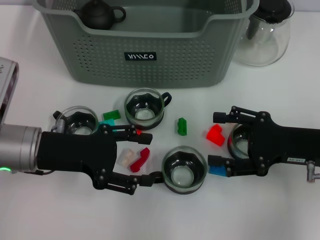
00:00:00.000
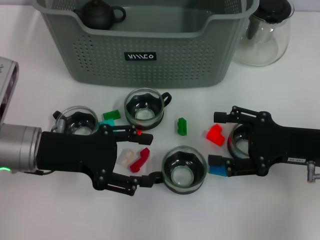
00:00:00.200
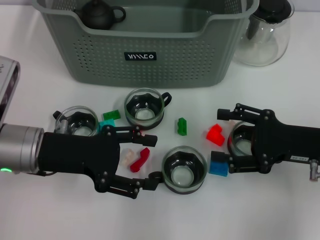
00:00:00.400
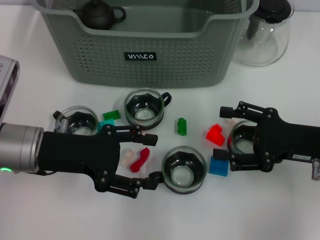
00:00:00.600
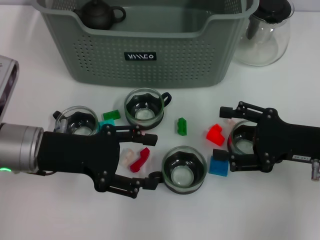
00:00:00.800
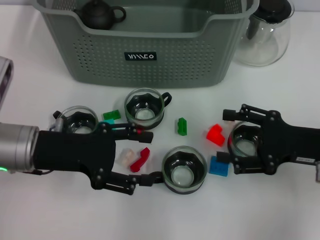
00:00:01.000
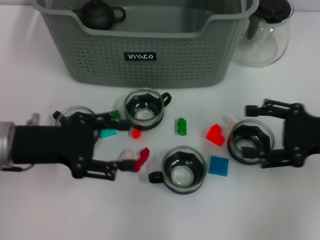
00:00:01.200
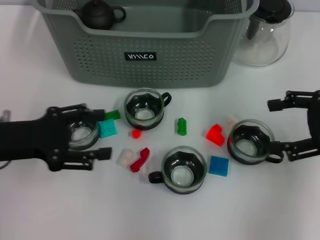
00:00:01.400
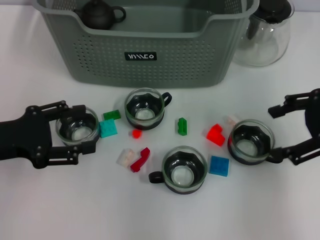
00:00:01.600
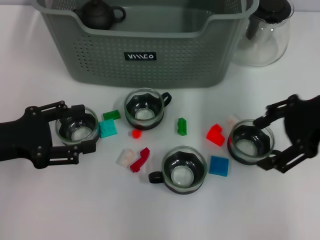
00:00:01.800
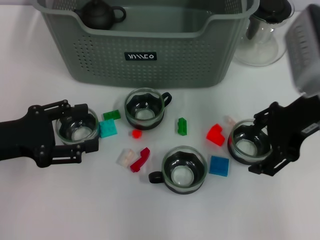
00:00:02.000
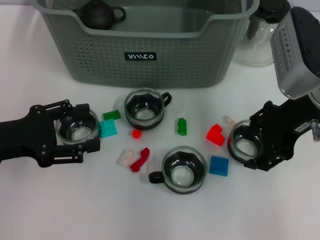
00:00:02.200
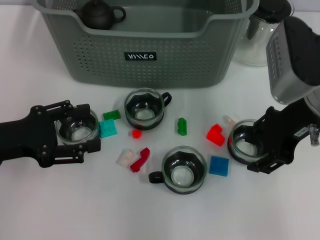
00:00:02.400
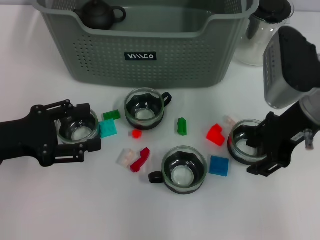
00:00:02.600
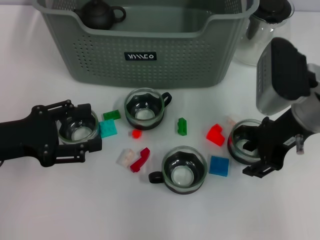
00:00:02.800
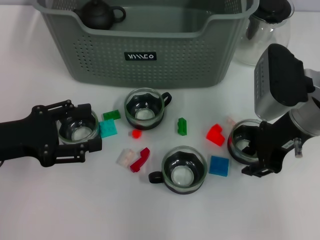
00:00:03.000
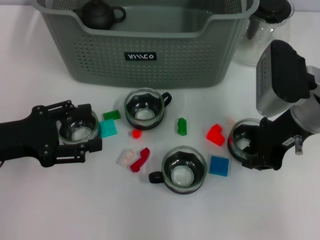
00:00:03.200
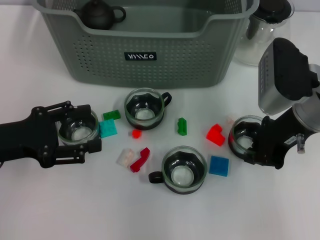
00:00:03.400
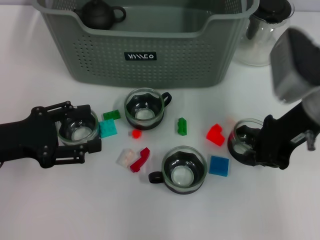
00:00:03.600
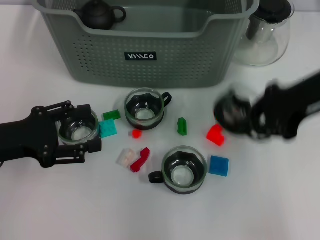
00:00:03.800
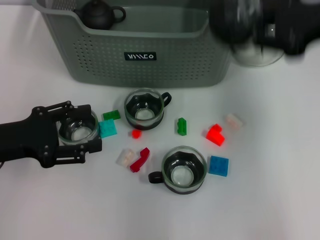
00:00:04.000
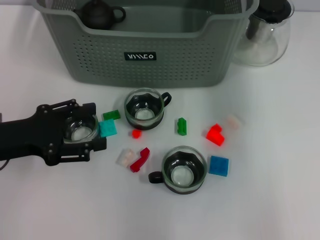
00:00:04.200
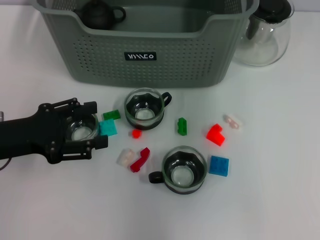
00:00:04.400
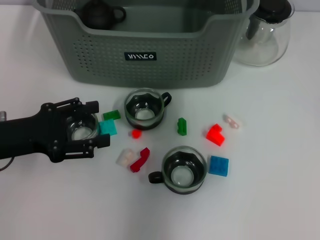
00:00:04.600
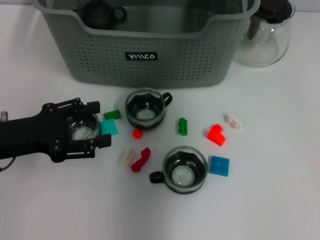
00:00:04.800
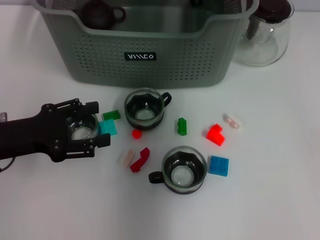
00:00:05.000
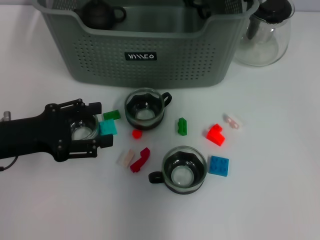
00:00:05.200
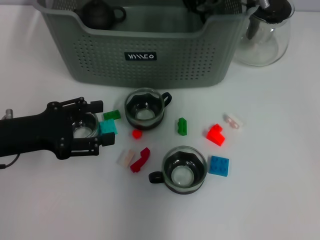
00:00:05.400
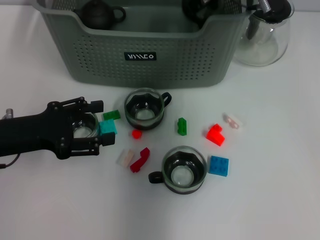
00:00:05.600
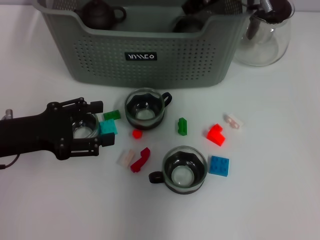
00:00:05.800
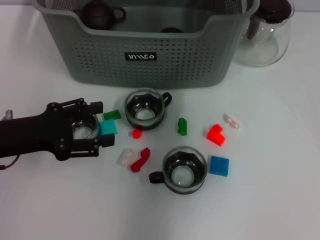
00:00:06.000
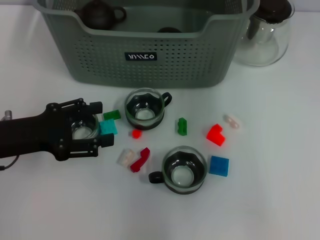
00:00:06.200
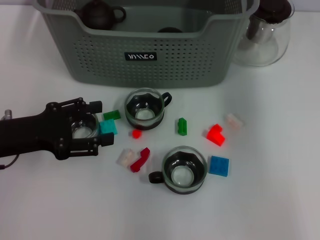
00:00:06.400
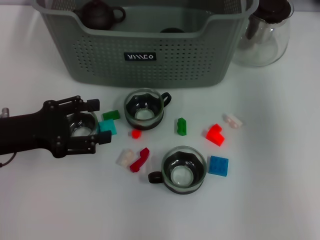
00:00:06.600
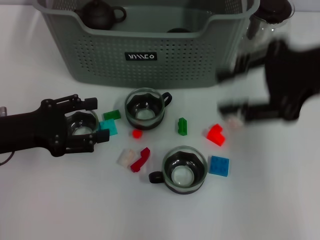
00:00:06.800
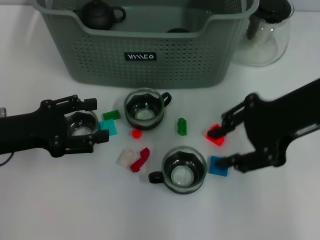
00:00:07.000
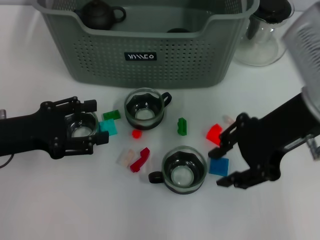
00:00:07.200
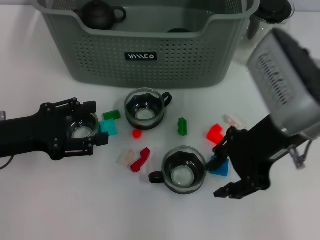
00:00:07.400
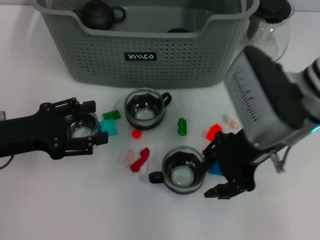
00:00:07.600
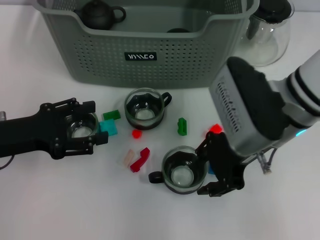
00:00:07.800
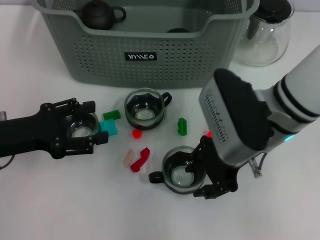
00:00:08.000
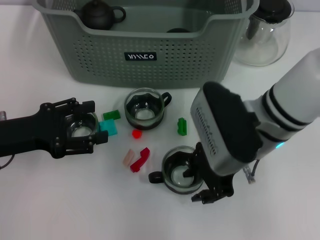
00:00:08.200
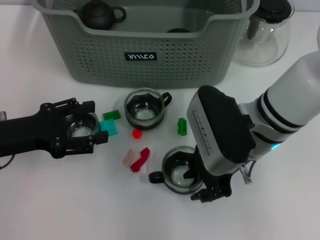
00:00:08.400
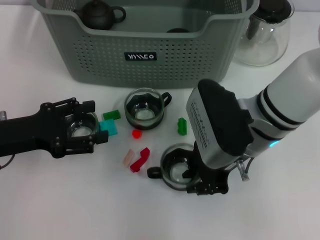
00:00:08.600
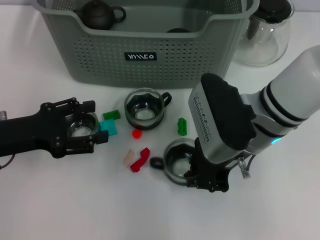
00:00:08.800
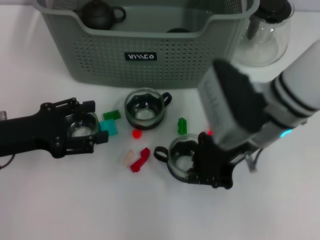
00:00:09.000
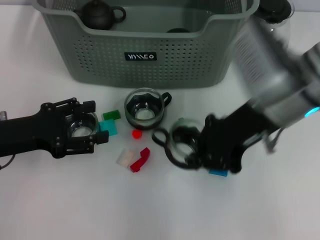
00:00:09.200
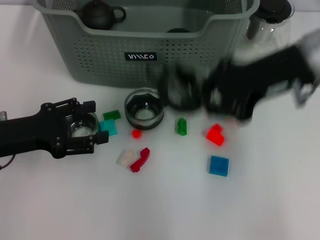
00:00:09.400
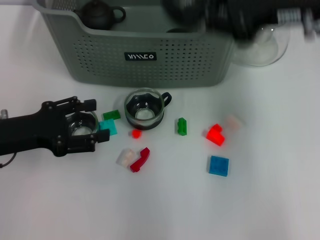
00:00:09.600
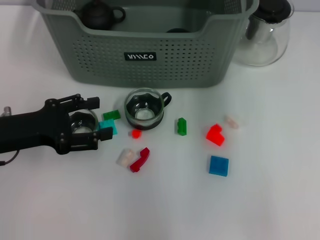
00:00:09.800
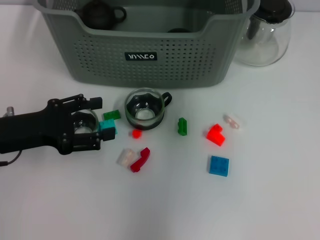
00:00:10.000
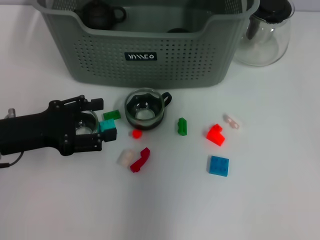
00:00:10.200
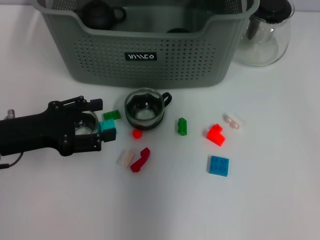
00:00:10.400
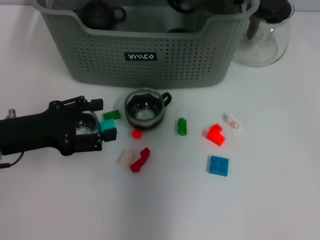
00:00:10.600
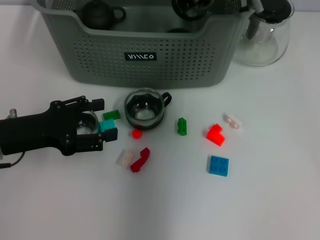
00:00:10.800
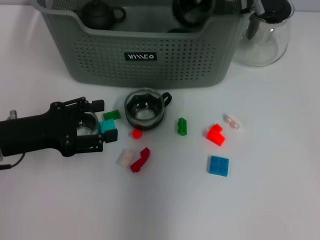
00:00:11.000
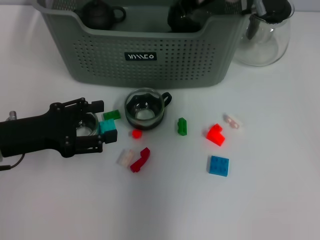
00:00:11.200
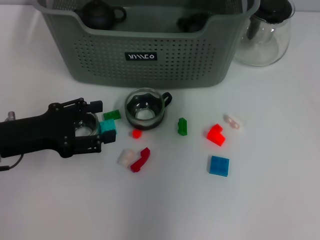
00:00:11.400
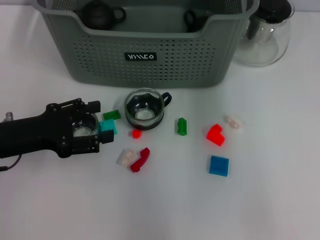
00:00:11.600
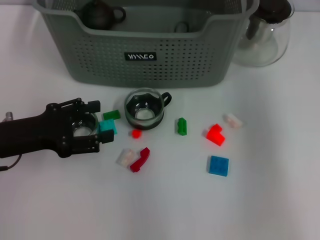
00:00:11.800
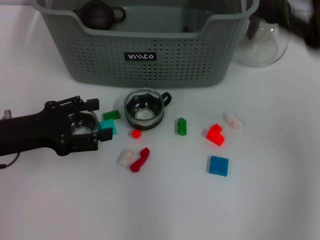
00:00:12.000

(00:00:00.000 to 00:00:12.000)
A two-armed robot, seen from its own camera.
Task of the whole recording: pick up the teacup on the table and place it into the storage bin, pick up the block on the table and place it into the storage bin.
00:00:00.000 - 00:00:01.600: The right gripper is displaced upward by approximately 10 cm, while the left gripper shifts some 10 cm to the left.
00:00:01.600 - 00:00:03.000: The right gripper heads to the left and downward, covering some 10 cm.
00:00:03.000 - 00:00:04.400: The right gripper goes approximately 20 cm upward and forward, and closes its fingers.
00:00:04.400 - 00:00:06.000: The right gripper is displaced downward and forward by roughly 10 cm, and opens.
00:00:06.000 - 00:00:07.600: The right gripper shifts about 20 cm backward.
00:00:07.600 - 00:00:09.000: The right gripper closes up.
00:00:09.000 - 00:00:10.400: The right gripper goes some 20 cm forward and upward.
00:00:10.400 - 00:00:12.000: The right gripper moves to the right and backward, roughly 25 cm, and opens its fingers.

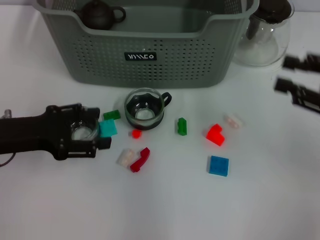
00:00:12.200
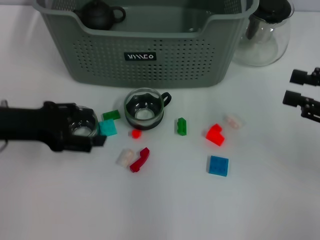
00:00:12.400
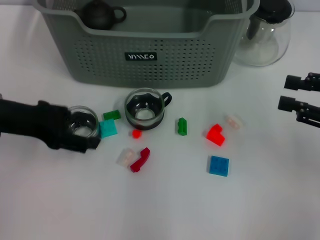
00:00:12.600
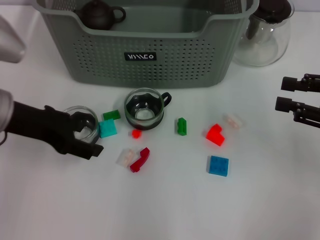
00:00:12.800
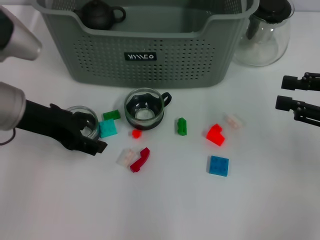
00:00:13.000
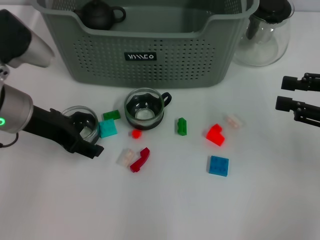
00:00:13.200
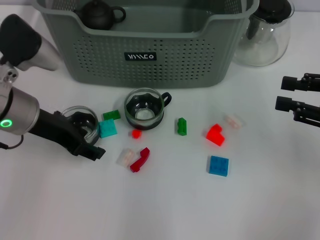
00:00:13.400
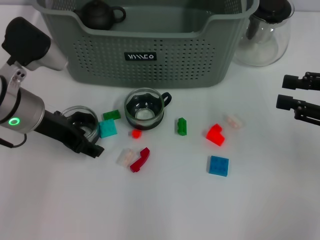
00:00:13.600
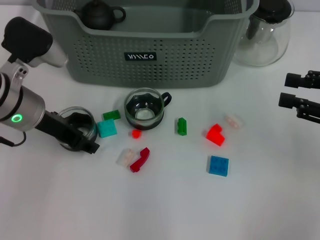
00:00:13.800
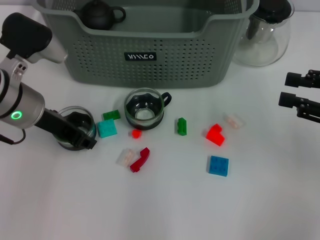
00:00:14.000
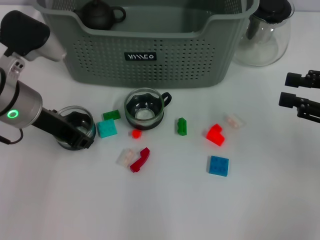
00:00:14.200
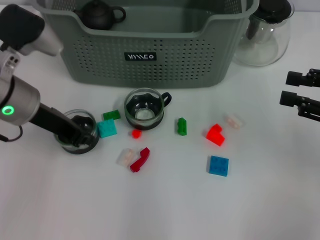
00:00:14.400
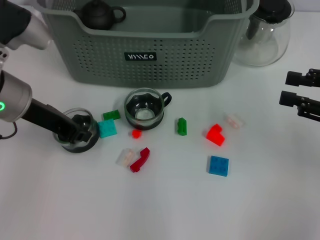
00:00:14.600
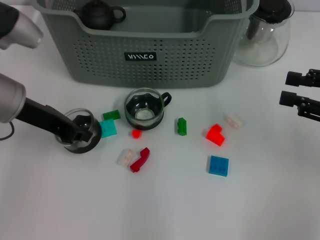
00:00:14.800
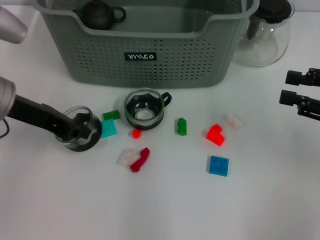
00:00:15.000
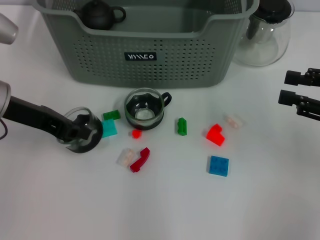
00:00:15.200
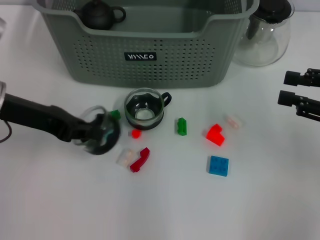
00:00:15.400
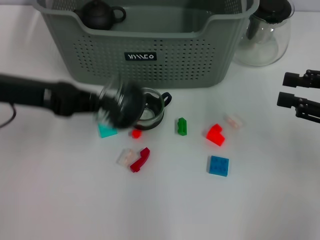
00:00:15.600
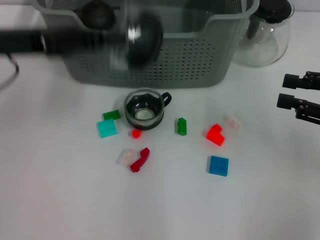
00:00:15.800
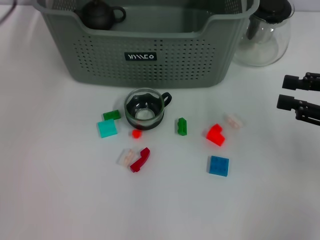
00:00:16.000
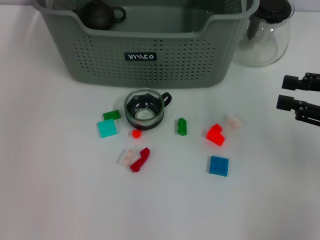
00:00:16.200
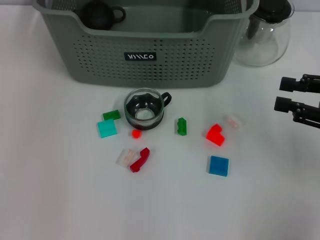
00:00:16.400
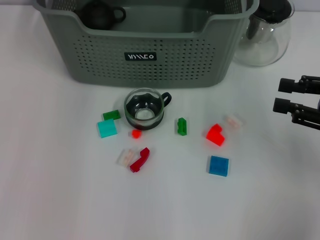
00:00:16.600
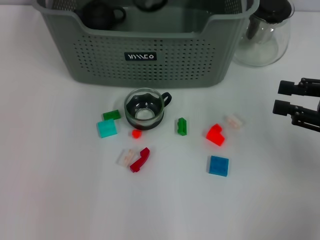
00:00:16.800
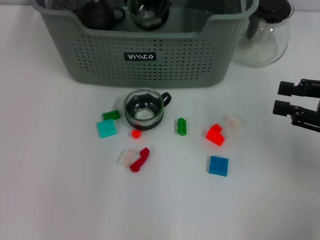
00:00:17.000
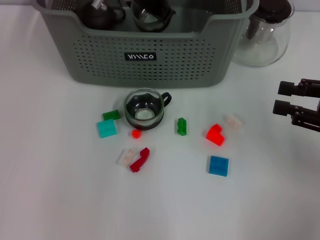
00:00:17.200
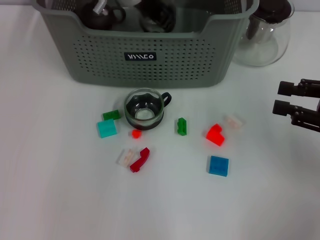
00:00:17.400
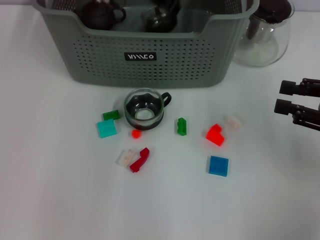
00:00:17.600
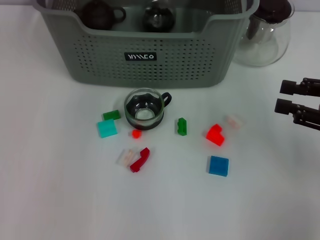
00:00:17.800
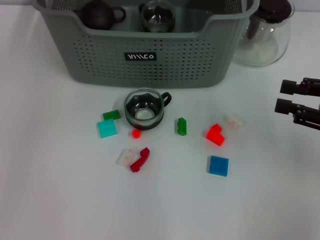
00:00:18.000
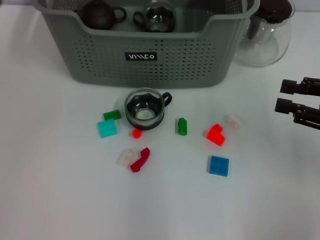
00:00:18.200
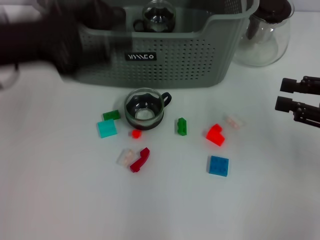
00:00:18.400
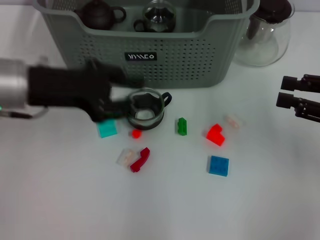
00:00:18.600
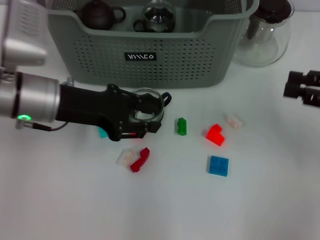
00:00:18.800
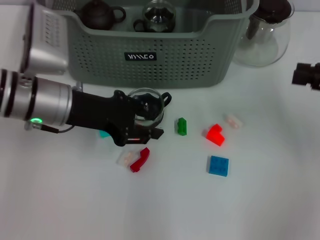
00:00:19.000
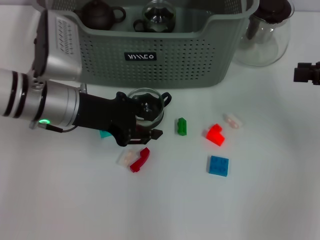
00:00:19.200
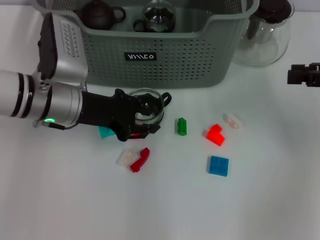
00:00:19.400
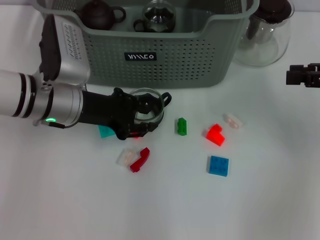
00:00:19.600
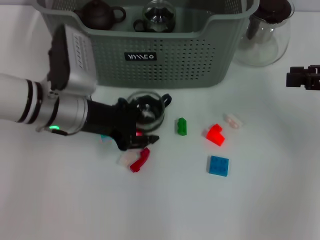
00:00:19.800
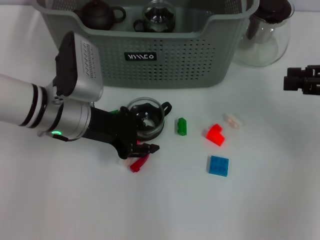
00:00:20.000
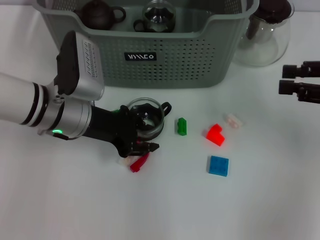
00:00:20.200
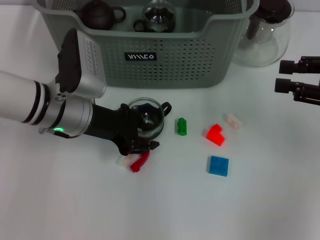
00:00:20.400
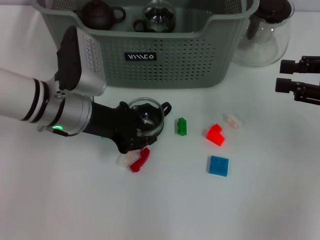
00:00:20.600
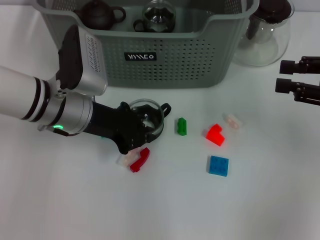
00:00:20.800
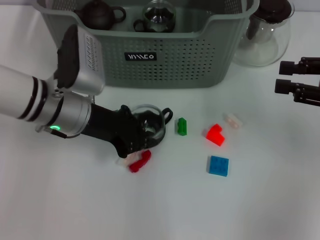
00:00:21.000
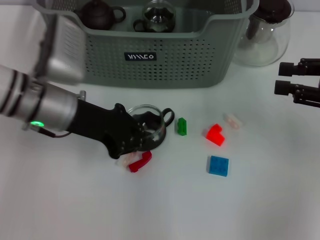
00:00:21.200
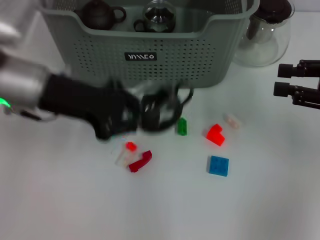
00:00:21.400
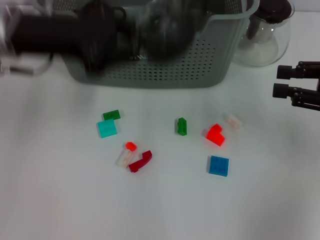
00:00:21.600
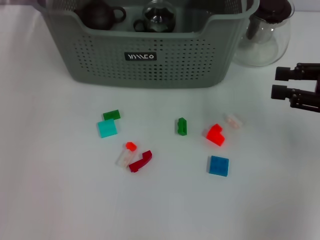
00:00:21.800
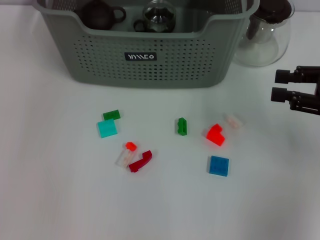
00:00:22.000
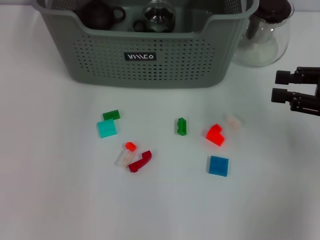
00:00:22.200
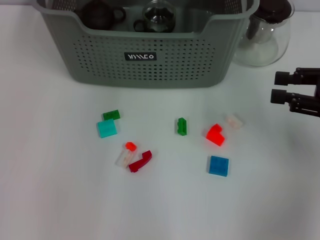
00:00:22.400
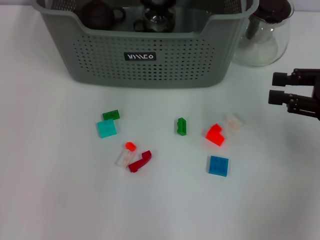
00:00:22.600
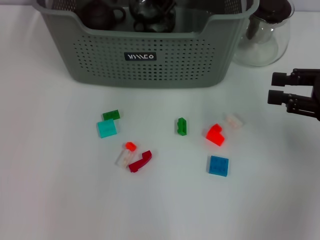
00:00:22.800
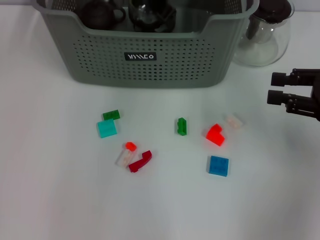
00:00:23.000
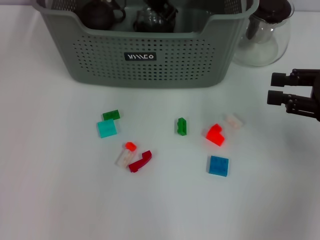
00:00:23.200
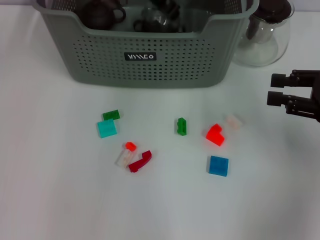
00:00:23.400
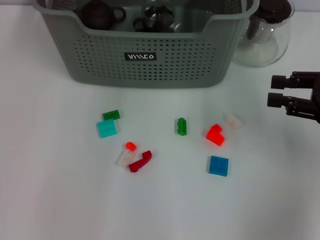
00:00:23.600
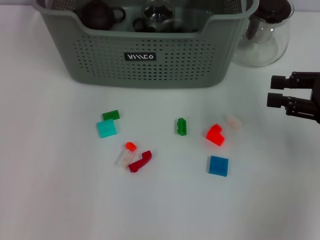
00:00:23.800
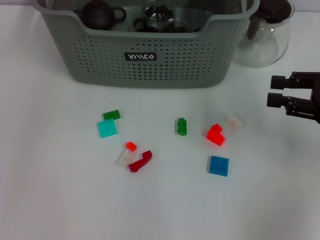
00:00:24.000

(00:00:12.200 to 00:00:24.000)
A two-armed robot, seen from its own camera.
Task of the whole recording: pick up the teacup on the table and place it into the storage bin, pick up the block on the table and place it into the storage bin.
Step, 00:00:12.200 - 00:00:14.800: Grasp the cup with left gripper.
Step, 00:00:15.000 - 00:00:17.800: Place the cup in the storage box with left gripper.
Step, 00:00:18.000 - 00:00:21.200: Grasp the cup with left gripper.
Step, 00:00:21.400 - 00:00:23.600: Place the cup in the storage box with left gripper.
00:00:12.200 - 00:00:13.600: The left gripper heads to the right and forward, covering some 10 cm.
00:00:13.600 - 00:00:15.200: The left gripper closes.
00:00:15.200 - 00:00:16.600: The left gripper goes about 25 cm forward, upward and to the right.
00:00:16.600 - 00:00:18.200: The left gripper moves backward and to the left, roughly 20 cm, and opens its fingers.
00:00:18.200 - 00:00:19.600: The left gripper travels downward by about 15 cm. The right gripper is displaced forward by about 5 cm.
00:00:19.600 - 00:00:21.000: The left gripper closes up.
00:00:21.000 - 00:00:22.600: The left gripper goes about 25 cm forward, upward and to the right.
